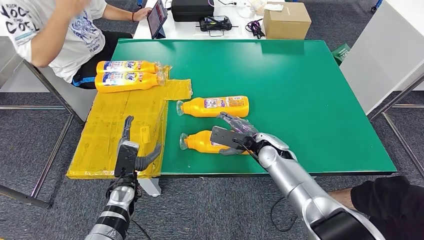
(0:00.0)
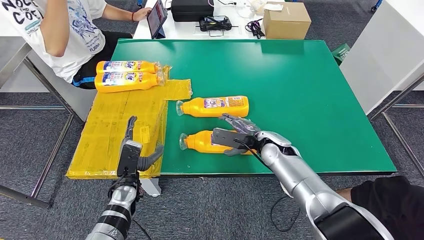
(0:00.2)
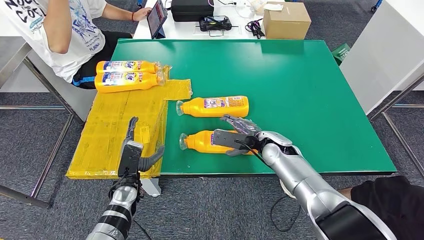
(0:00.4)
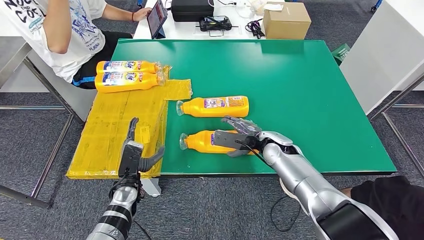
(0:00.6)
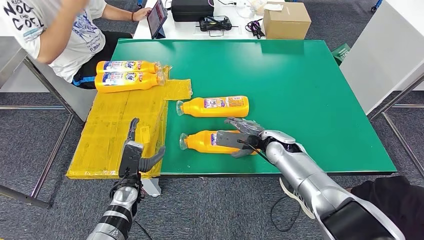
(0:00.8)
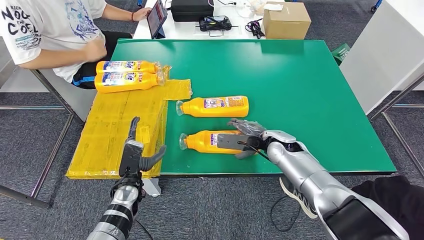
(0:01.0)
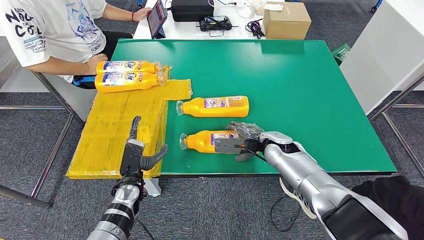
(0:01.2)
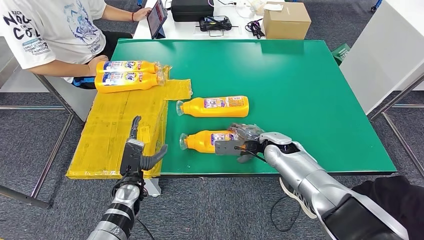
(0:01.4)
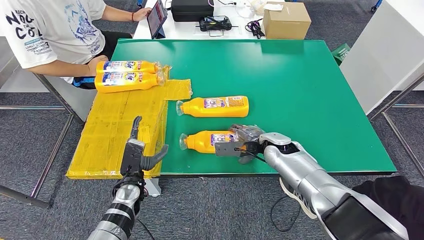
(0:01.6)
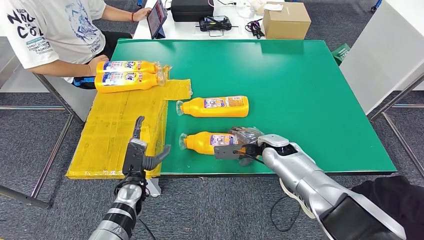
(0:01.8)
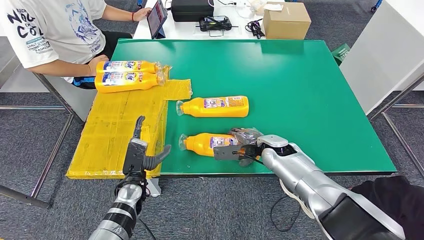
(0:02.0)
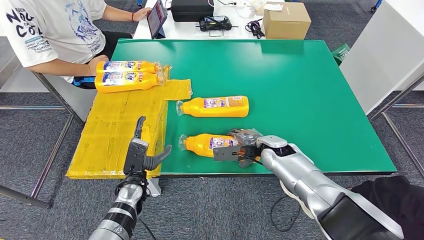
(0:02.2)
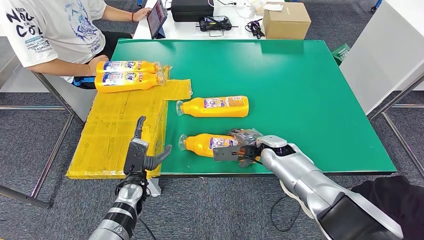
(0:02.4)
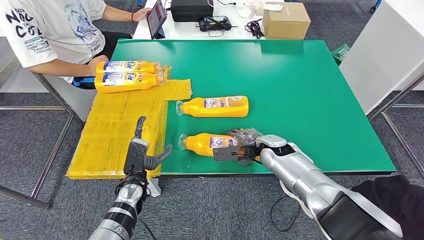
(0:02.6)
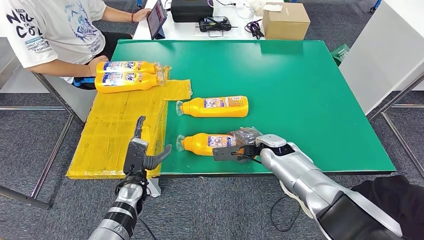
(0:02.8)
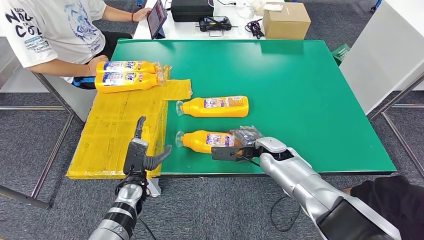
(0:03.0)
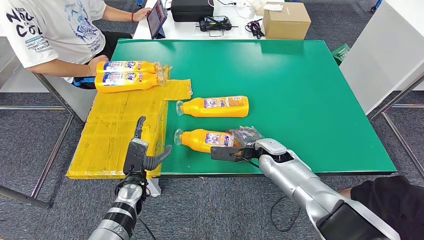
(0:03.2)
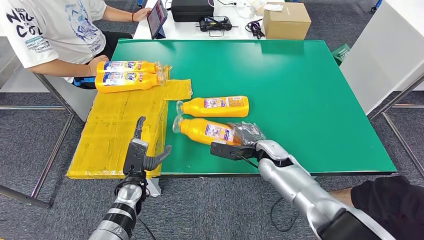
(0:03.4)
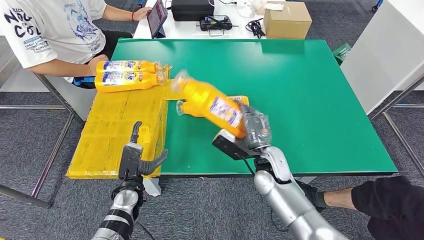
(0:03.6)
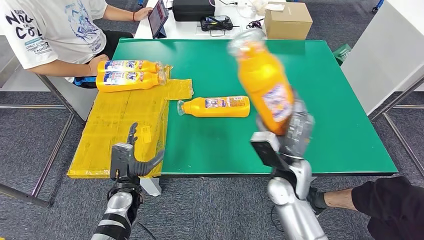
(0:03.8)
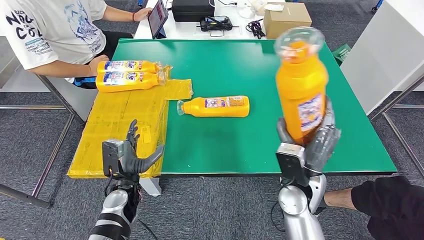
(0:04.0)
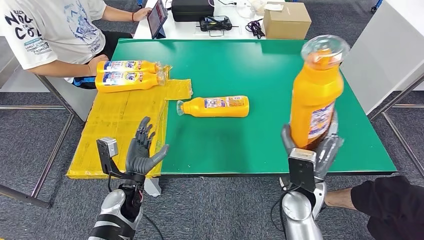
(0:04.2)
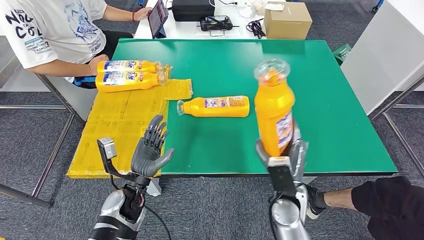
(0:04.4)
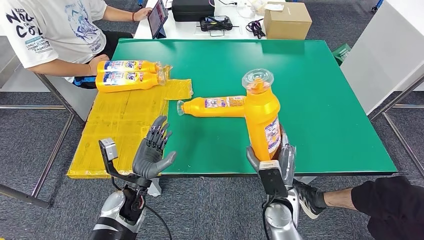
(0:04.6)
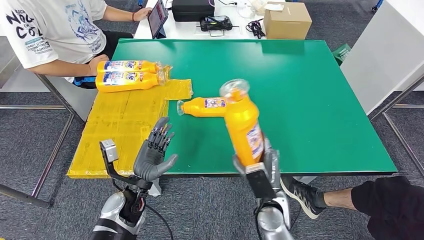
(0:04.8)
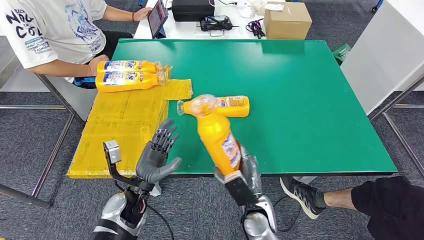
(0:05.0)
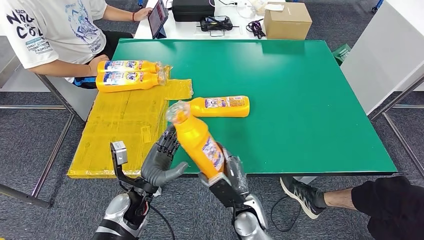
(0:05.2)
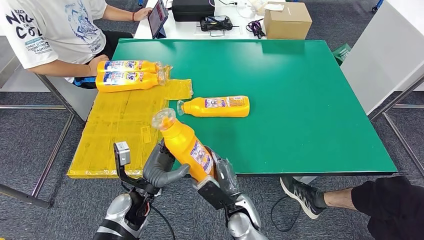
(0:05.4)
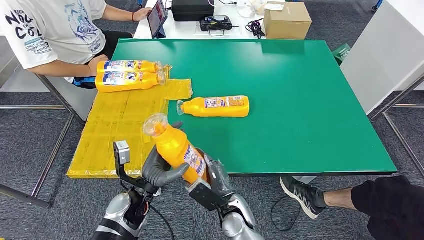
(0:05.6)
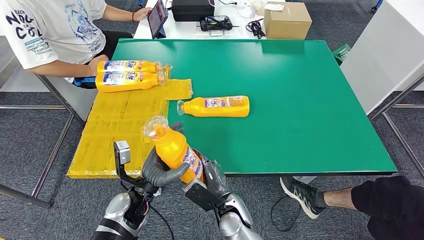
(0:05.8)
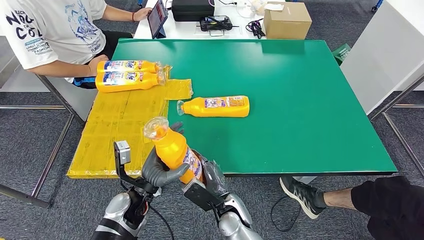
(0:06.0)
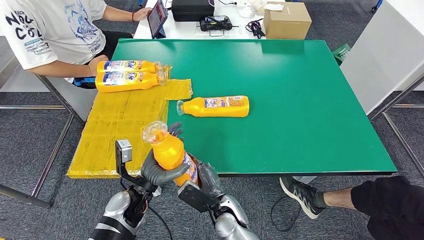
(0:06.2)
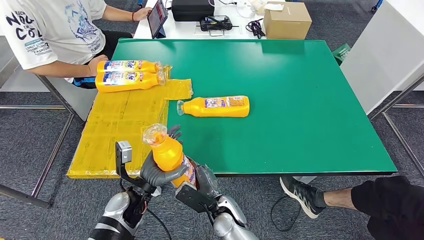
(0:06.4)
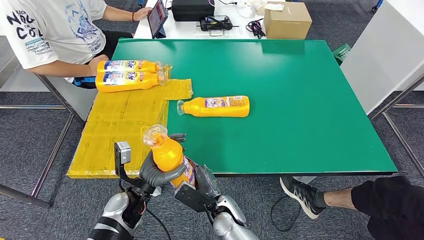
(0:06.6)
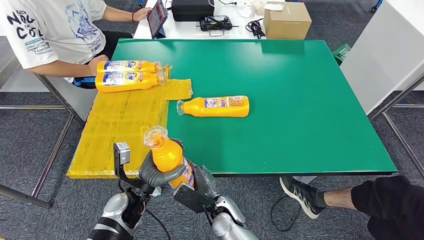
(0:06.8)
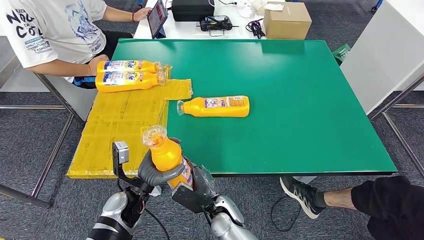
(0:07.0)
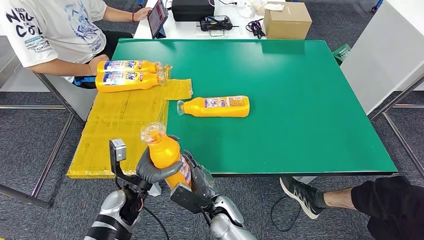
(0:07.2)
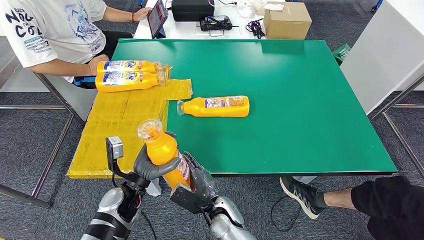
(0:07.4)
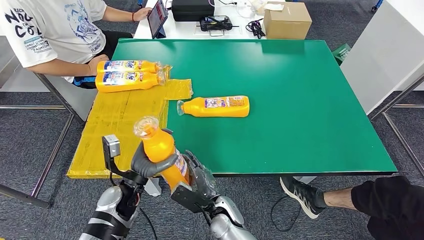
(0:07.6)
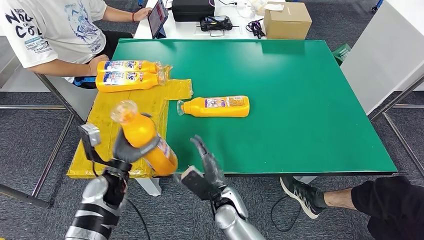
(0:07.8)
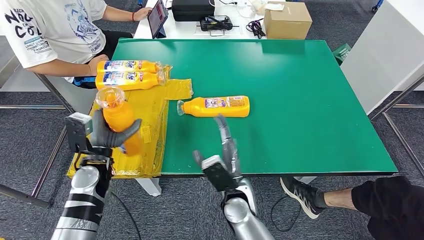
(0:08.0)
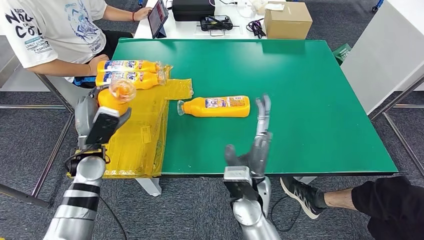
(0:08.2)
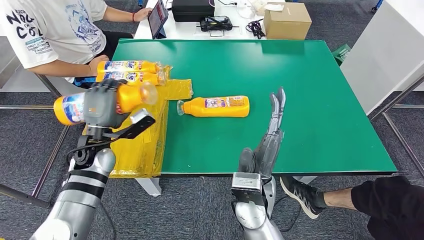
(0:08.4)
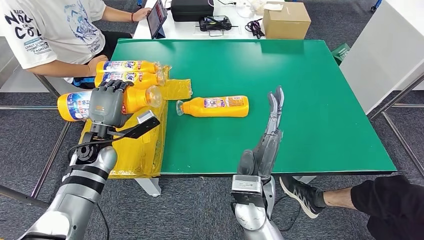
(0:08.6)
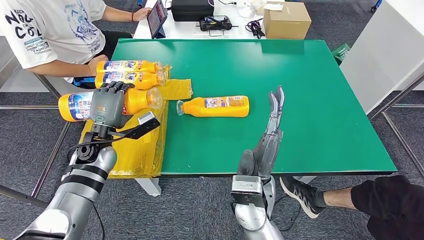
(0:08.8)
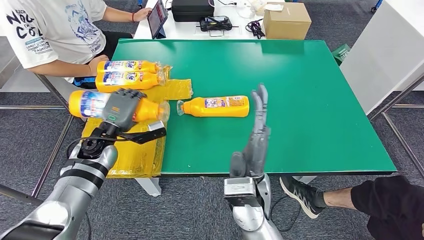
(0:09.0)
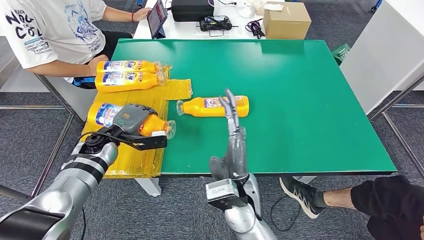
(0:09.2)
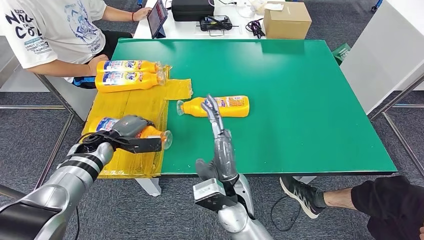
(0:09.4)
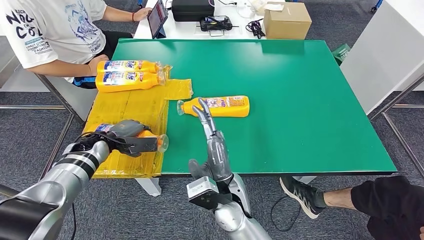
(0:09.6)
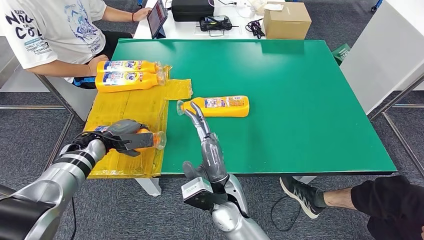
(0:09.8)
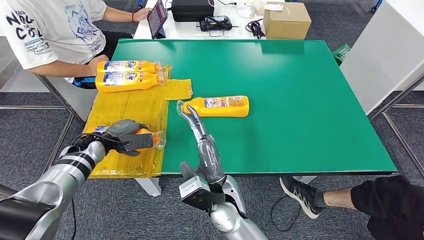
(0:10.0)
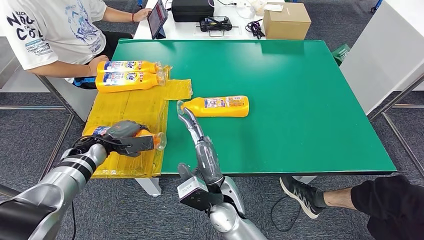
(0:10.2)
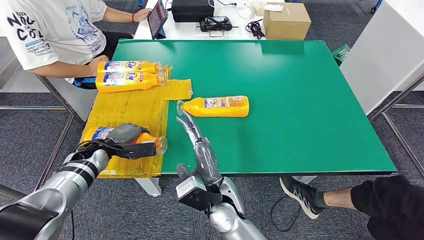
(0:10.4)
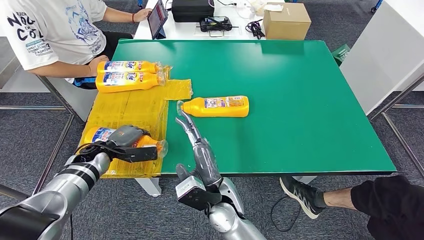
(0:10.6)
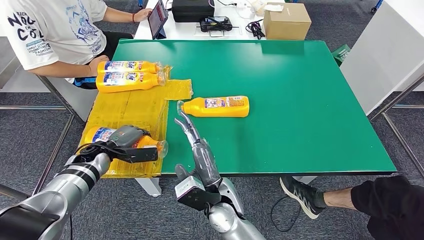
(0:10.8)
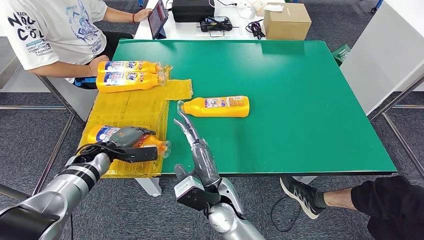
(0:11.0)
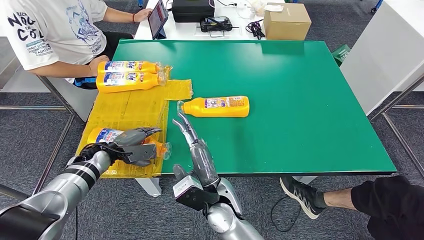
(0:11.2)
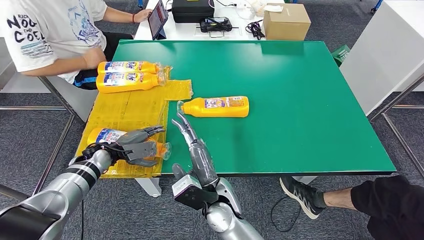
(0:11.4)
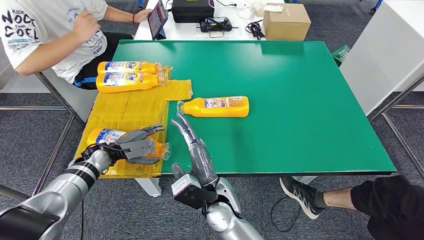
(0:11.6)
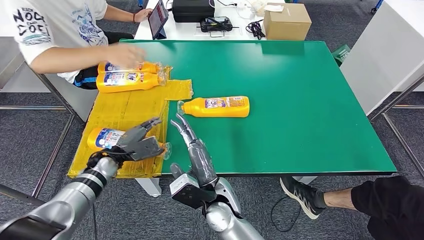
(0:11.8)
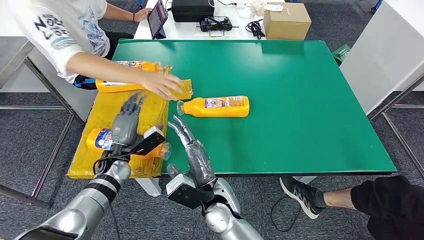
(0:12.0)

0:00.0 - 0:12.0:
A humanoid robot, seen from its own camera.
Step, 0:00.0 - 0:07.0: Pick up the fast-moving consumer goods bottle from the table.
0:01.6 - 0:03.0: There are only small adjustments of the hands.
0:03.0 - 0:04.4: The left hand shifts by roughly 5 cm. The right hand goes roughly 15 cm backward.
0:04.4 - 0:06.0: The right hand shifts roughly 15 cm to the left and downward.
0:06.0 - 0:07.6: The hands stay close to where they were, moving slightly.
0:07.6 - 0:09.0: The right hand moves upward, roughly 15 cm; the left hand heads forward, to the left and upward, covering roughly 15 cm.
0:09.0 - 0:10.4: The right hand shifts about 5 cm downward and to the left. The left hand heads to the left and downward, covering roughly 10 cm.
0:10.4 - 0:12.0: The left hand moves to the right, roughly 10 cm.

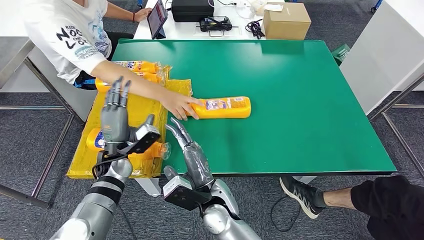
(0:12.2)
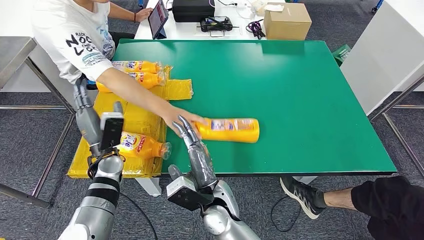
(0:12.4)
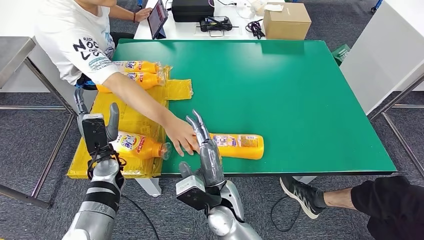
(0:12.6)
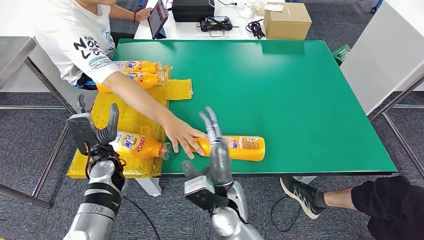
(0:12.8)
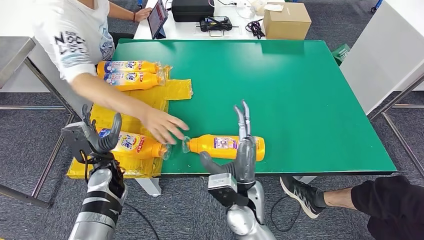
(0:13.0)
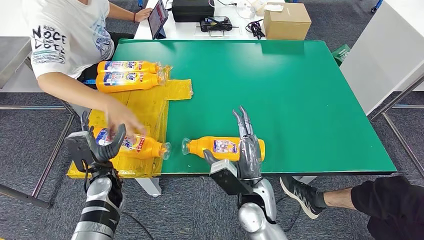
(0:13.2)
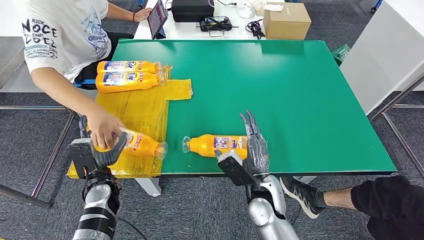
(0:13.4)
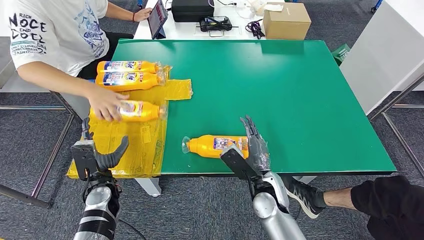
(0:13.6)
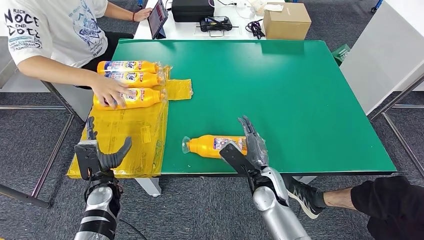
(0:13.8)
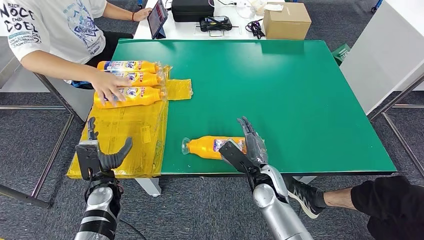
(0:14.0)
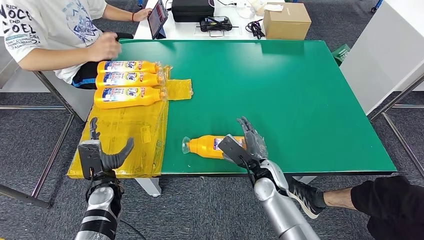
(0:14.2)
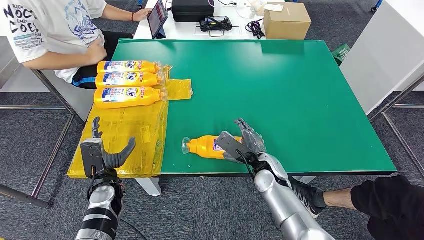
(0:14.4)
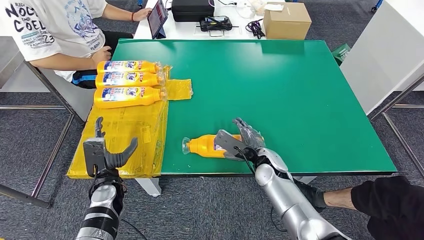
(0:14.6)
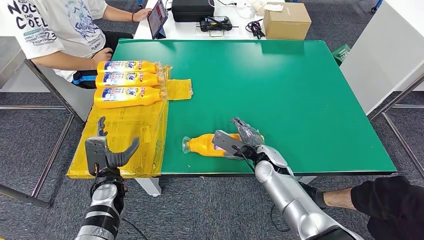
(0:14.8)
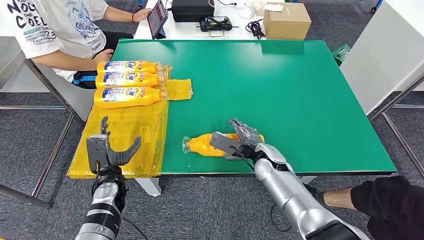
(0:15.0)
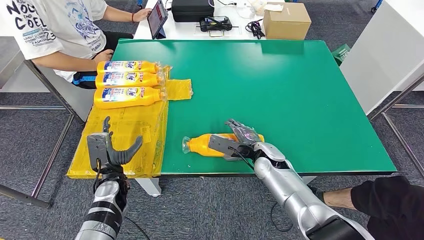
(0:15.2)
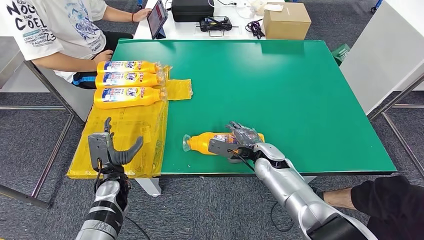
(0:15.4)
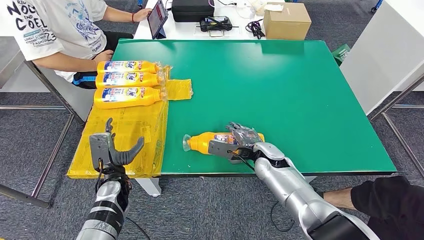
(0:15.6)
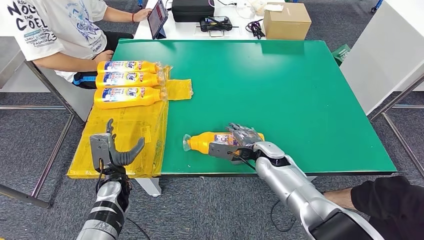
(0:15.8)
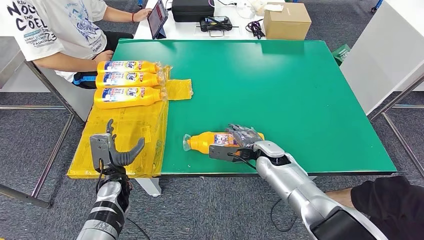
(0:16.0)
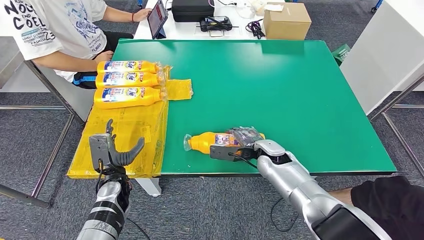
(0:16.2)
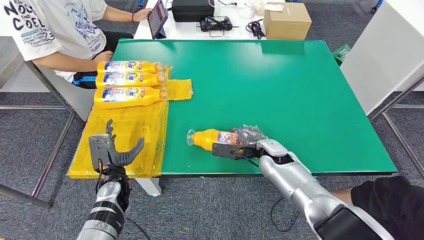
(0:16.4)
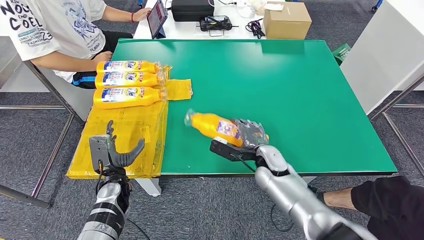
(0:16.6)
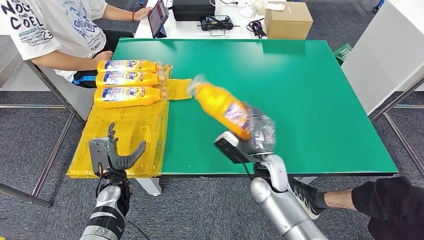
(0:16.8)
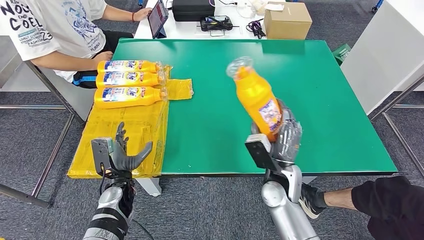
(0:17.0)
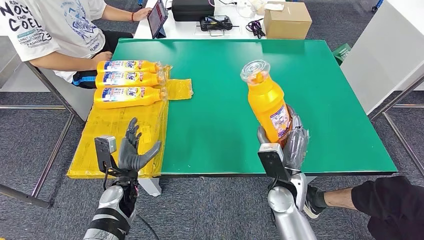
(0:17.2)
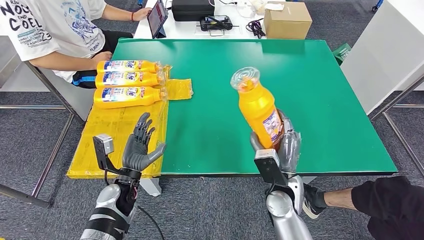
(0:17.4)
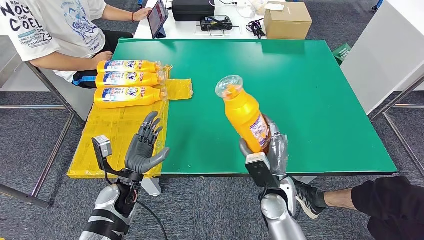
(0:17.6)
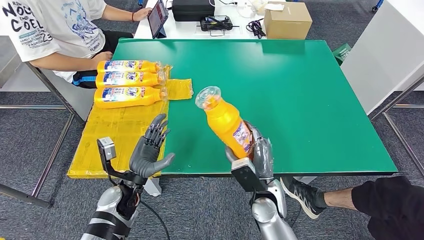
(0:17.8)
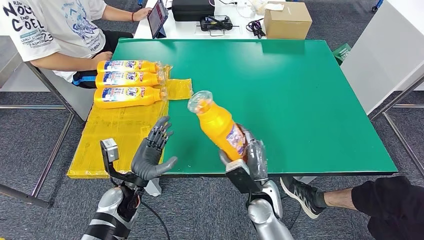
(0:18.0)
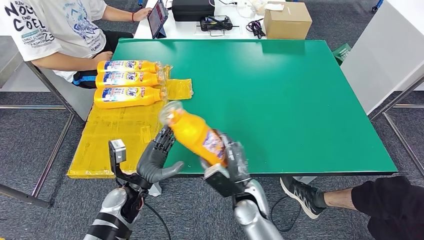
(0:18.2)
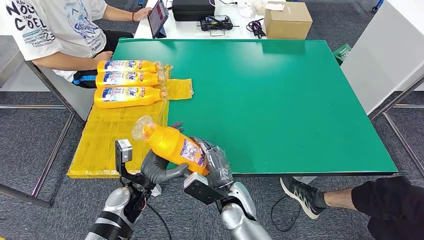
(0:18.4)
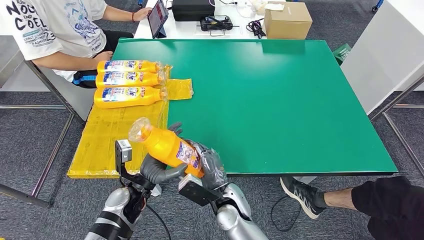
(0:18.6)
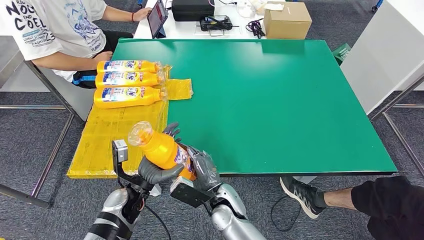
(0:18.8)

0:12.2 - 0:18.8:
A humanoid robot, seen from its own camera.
Step, 0:13.8 - 0:18.2: Pick up the fast-moving consumer goods bottle from the table.
0:13.8 - 0:15.4: The right hand heads forward, covering about 10 cm.
0:15.4 - 0:17.2: The right hand goes about 10 cm backward.
0:17.2 - 0:18.8: The right hand goes some 15 cm to the left.
